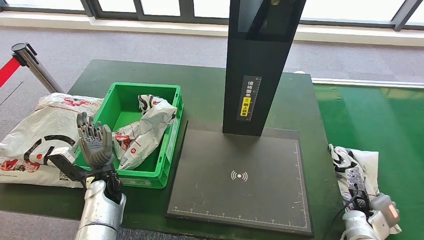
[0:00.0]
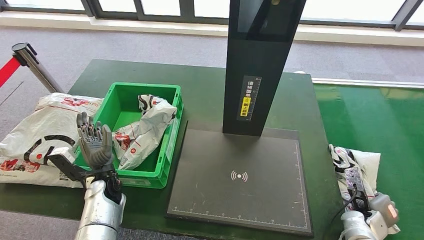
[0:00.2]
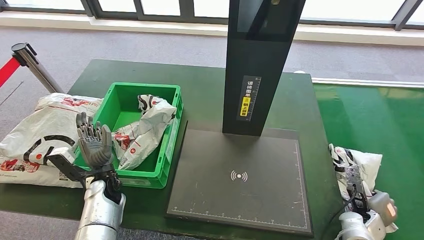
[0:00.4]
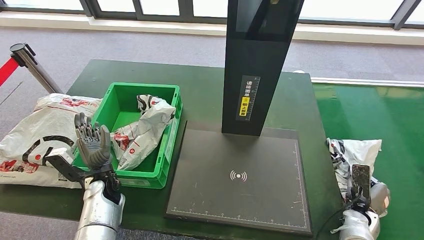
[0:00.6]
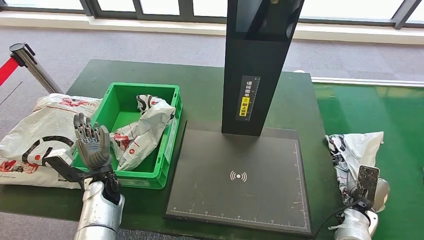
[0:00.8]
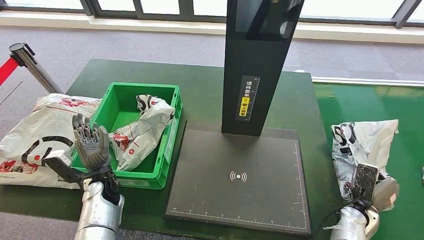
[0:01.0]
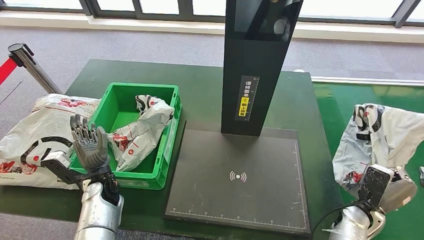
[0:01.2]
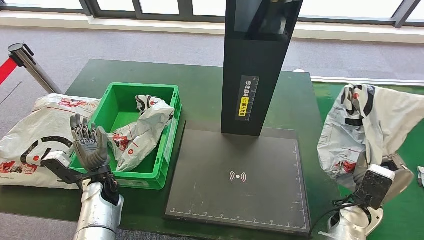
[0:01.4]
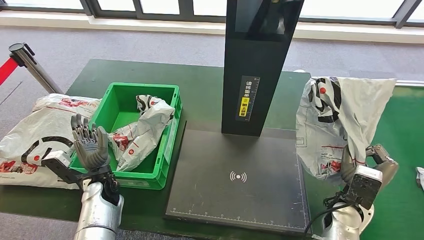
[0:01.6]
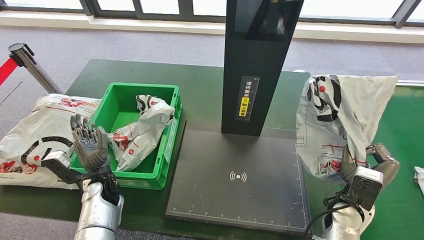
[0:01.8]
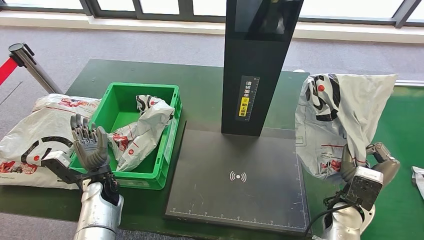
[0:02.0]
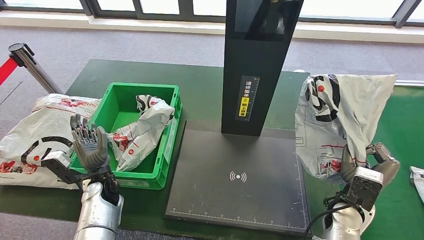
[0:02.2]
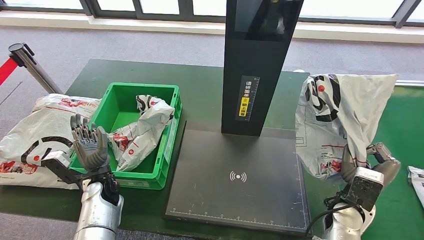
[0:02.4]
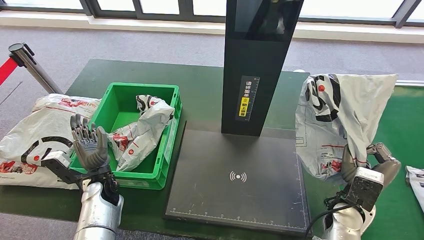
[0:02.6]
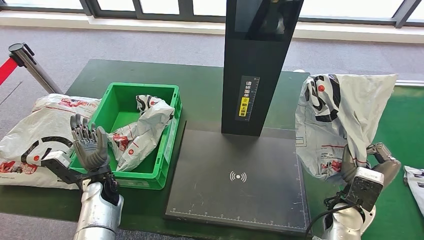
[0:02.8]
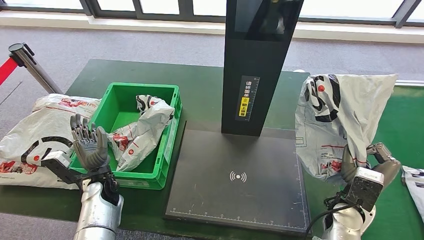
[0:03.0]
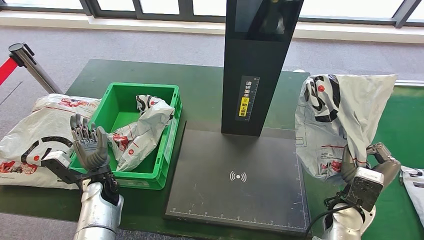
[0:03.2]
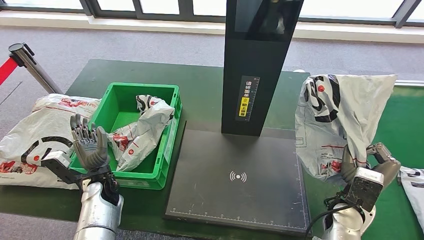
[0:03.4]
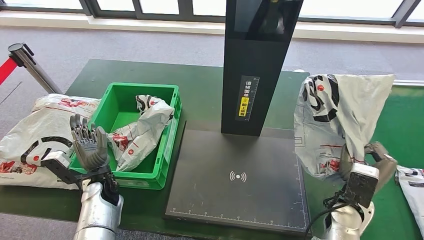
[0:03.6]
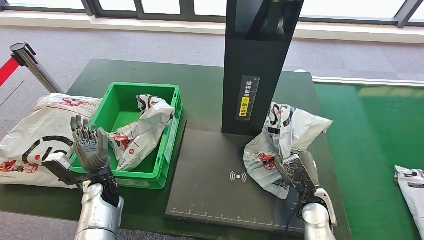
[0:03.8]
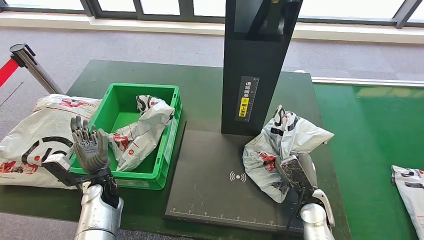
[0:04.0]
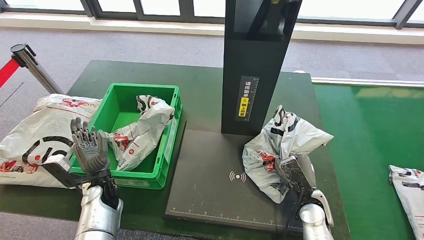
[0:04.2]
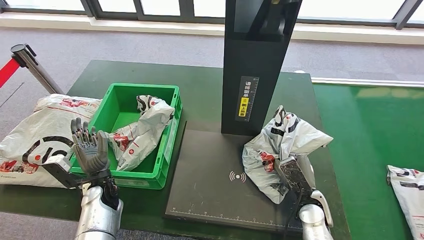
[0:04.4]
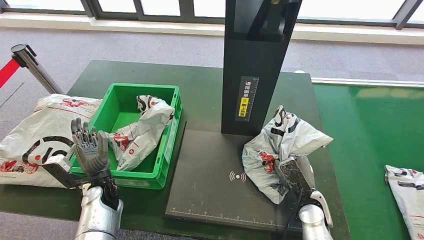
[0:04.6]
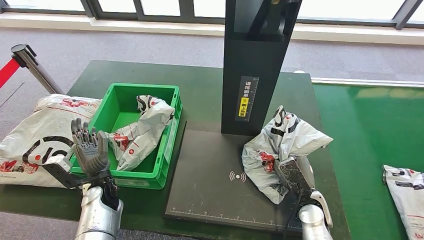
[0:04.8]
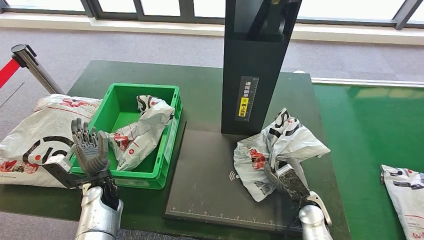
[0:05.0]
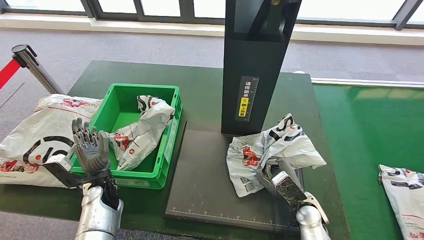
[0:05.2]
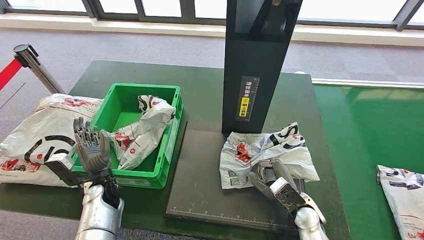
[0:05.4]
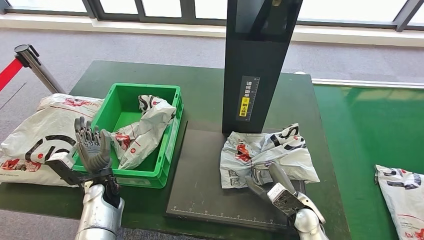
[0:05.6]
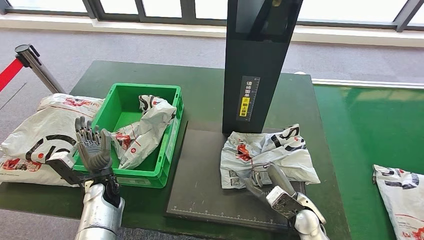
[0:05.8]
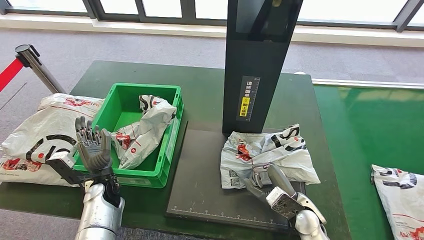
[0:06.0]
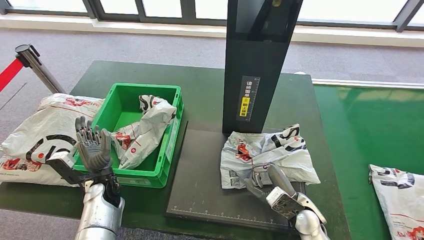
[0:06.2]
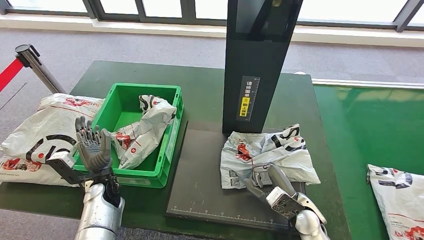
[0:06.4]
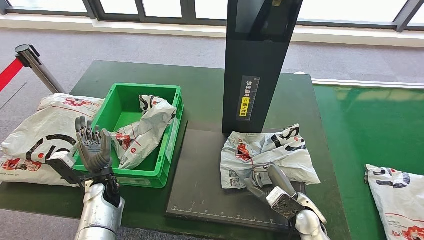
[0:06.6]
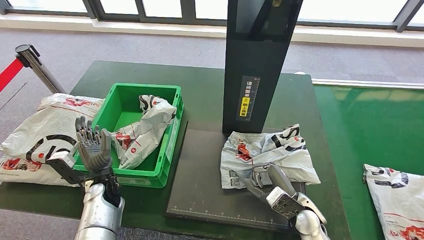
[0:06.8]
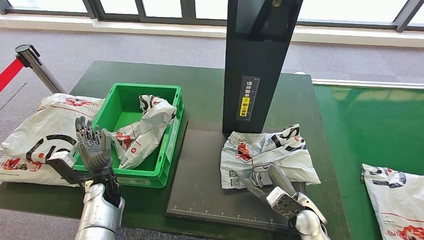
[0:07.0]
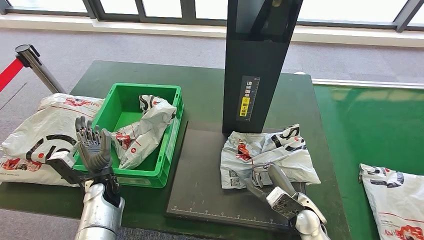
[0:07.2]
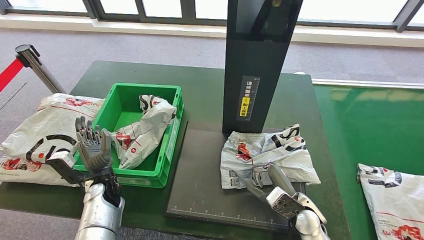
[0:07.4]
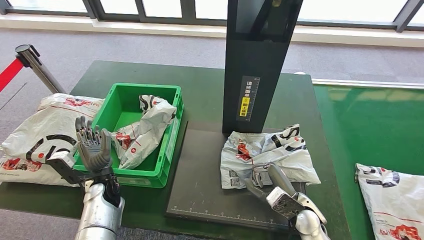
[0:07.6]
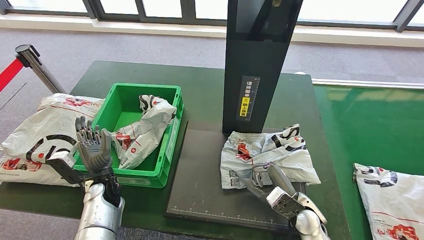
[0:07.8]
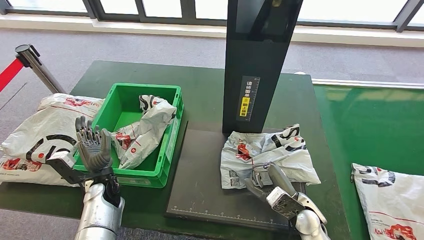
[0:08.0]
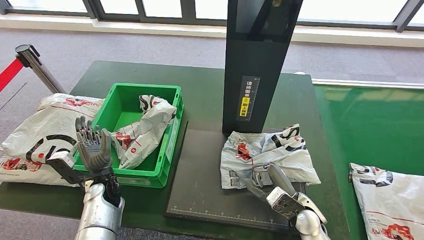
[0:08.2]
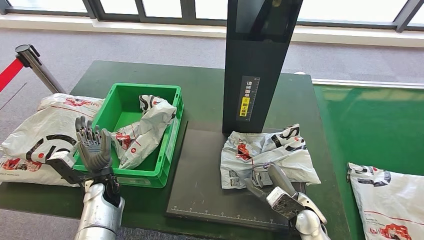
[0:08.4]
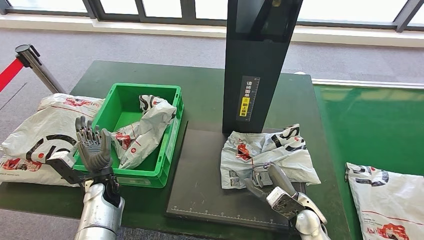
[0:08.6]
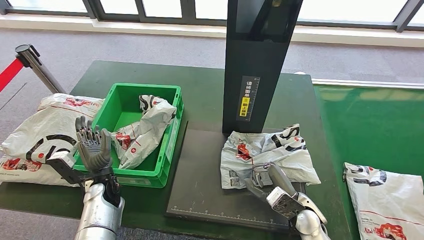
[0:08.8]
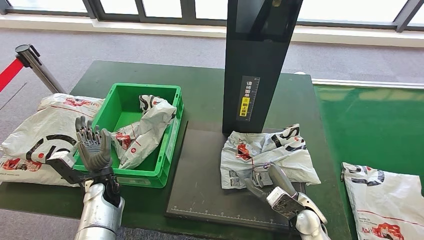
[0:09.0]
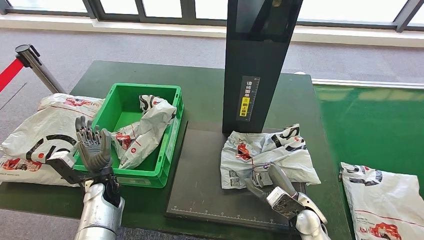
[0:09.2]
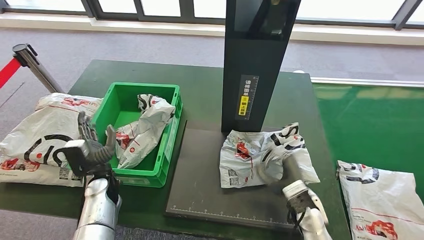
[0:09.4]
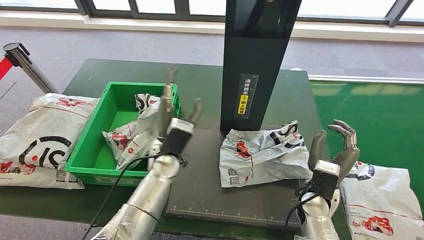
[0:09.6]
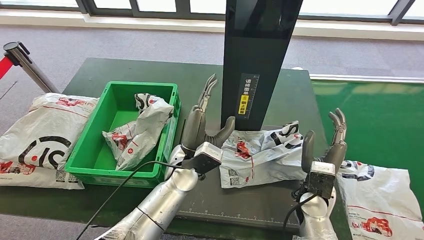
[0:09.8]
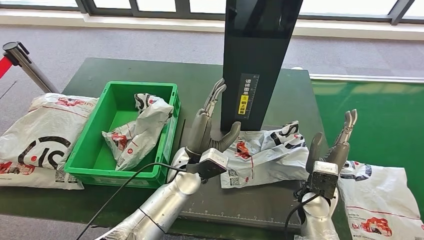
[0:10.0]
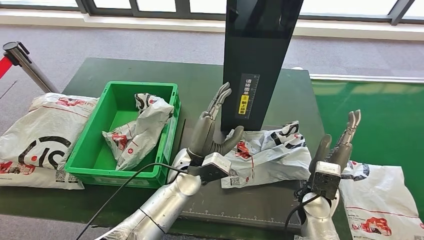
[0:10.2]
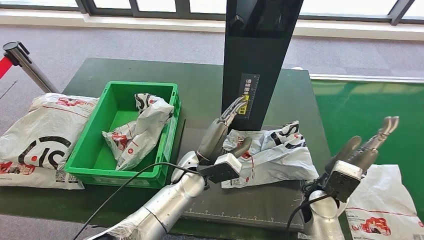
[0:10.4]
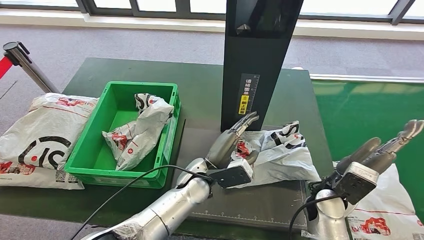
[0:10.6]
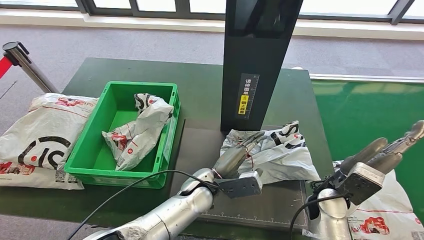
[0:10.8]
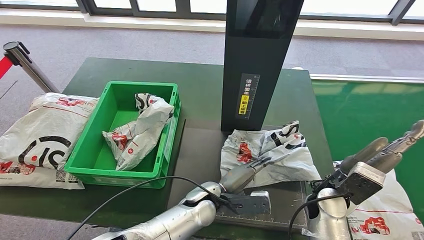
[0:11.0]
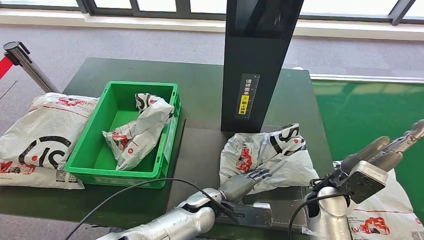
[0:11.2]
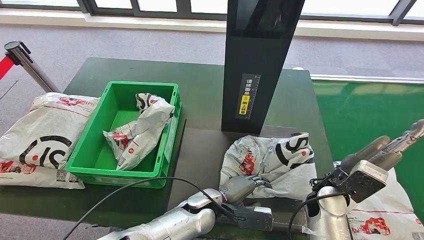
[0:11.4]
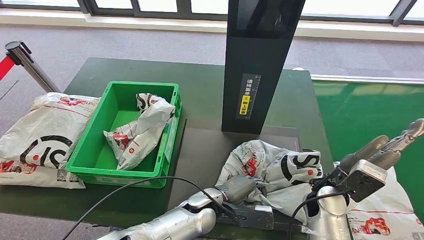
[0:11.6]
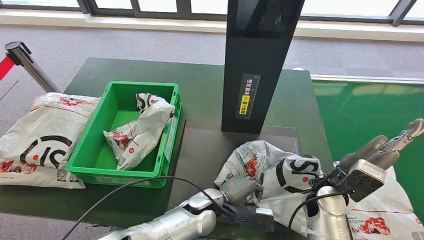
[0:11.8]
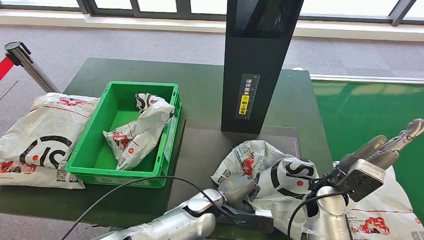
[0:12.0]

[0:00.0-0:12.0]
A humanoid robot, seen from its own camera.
Step, 0:02.8 to 0:09.6: Place the parcel onto the inbound machine.
0:01.6 to 0:03.0: Neither hand changes place.
0:06.0 to 0:09.0: Neither hand changes place.

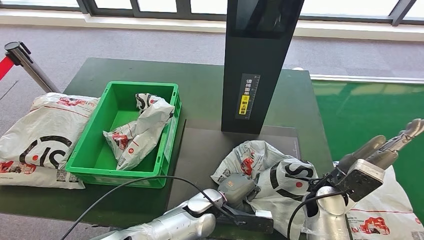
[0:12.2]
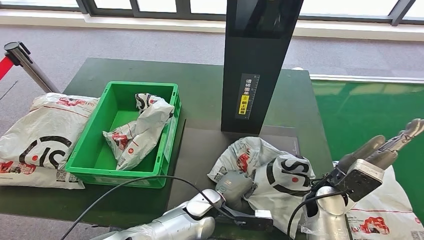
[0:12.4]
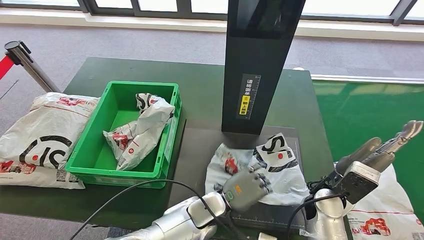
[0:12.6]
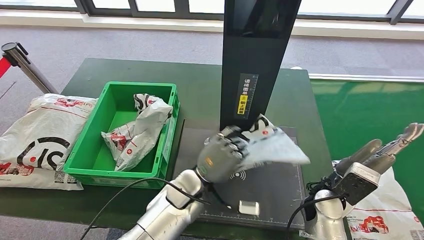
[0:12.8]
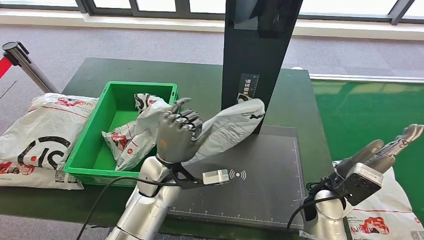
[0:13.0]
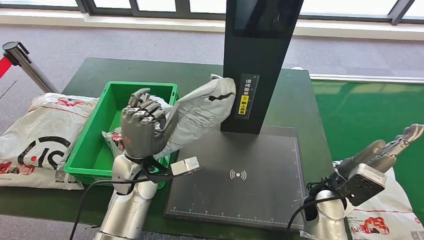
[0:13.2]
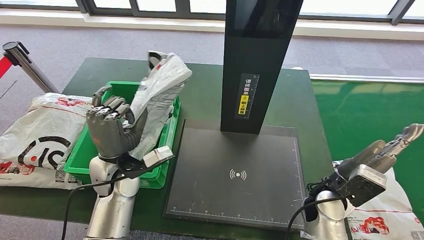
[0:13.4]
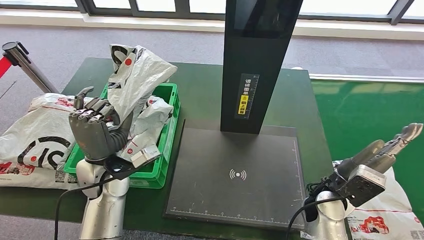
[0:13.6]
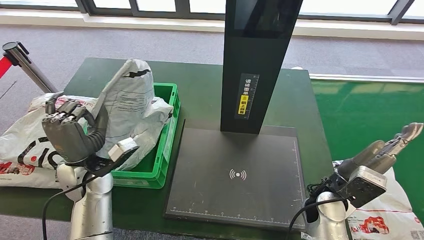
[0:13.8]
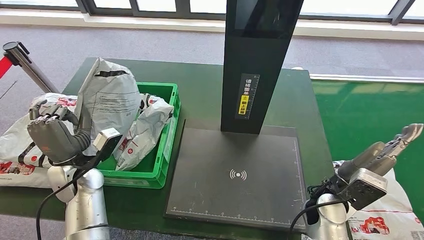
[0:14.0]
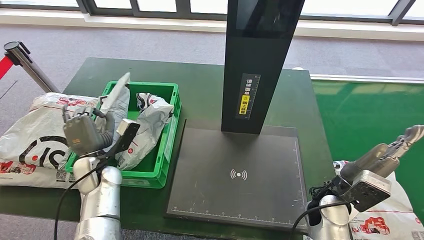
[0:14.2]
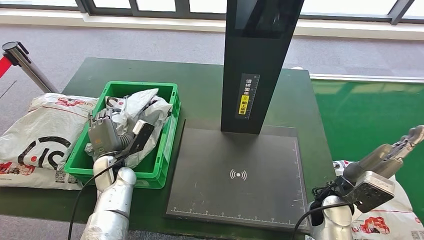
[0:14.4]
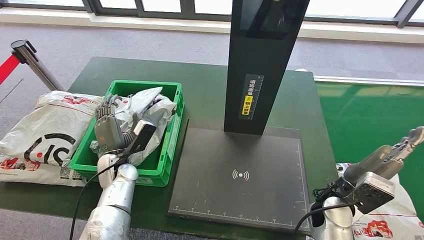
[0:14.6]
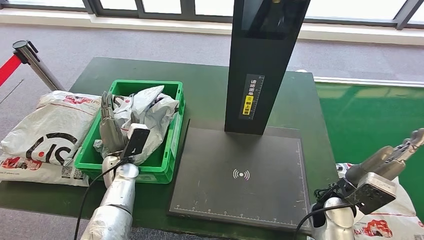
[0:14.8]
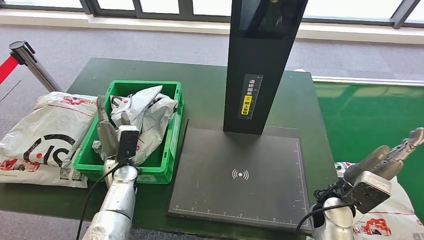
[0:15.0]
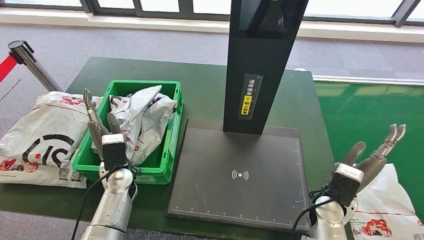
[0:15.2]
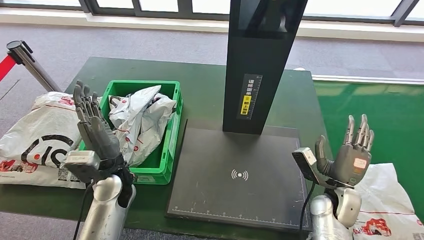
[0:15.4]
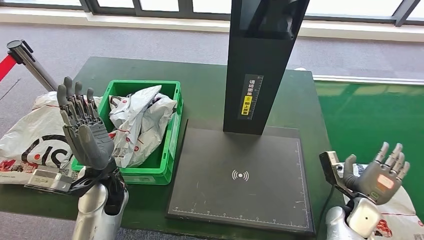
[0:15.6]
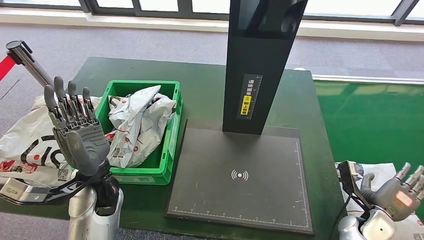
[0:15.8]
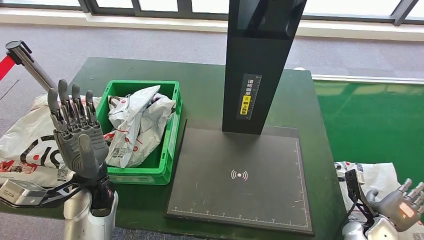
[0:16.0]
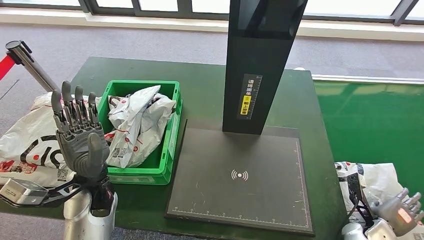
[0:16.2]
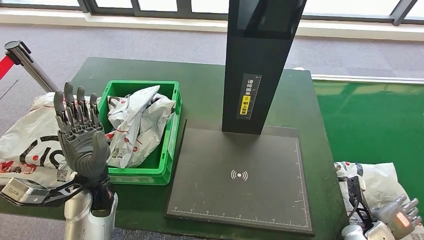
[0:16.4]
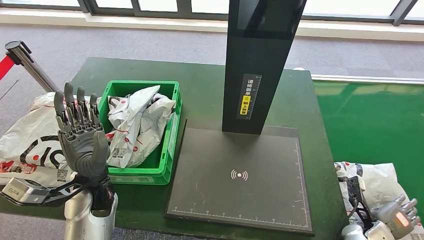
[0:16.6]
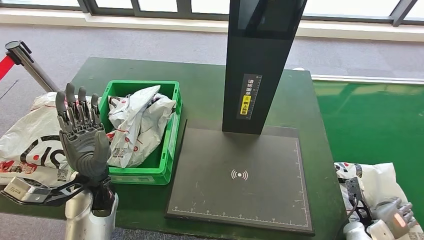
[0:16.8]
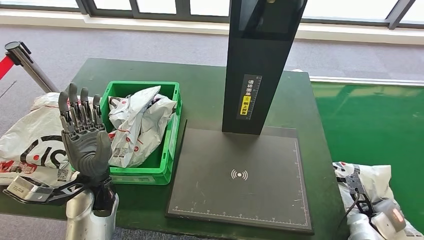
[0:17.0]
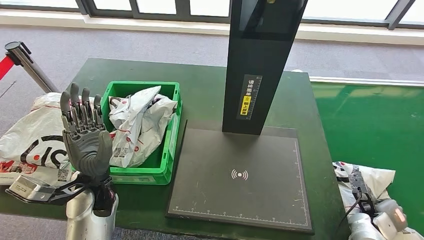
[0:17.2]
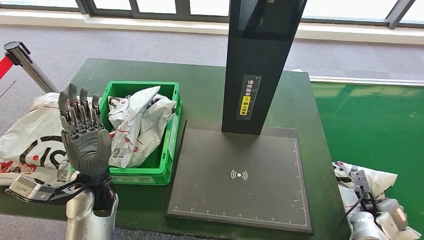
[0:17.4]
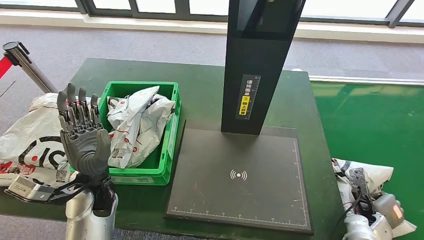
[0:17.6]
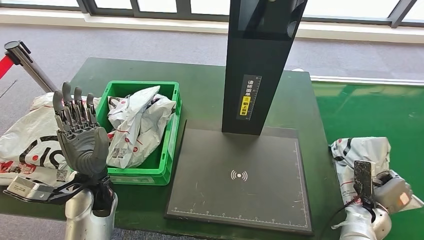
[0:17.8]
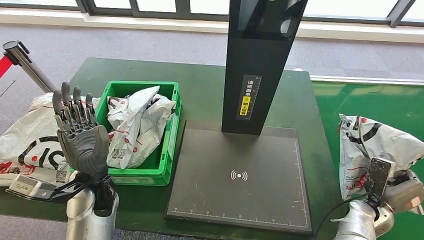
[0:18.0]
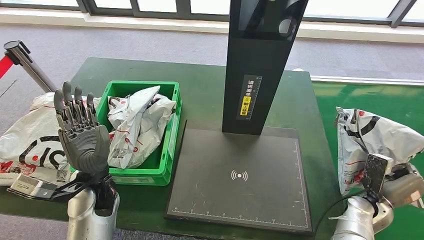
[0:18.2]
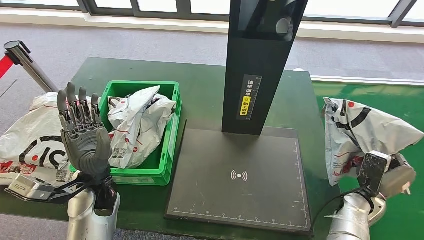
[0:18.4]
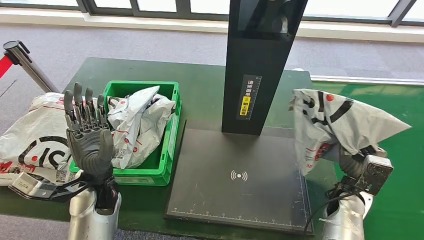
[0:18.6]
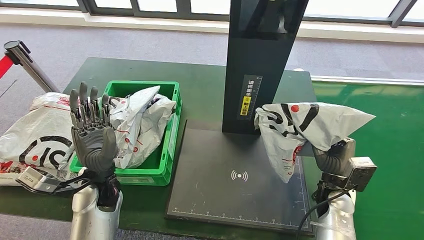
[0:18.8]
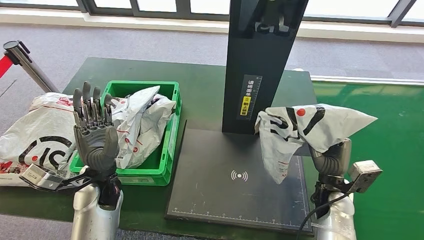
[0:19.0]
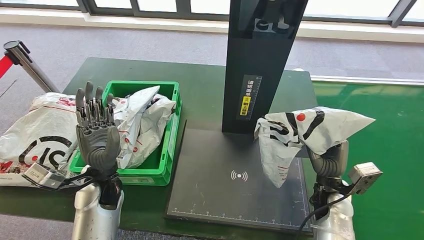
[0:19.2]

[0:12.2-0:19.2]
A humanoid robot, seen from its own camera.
Step, 0:13.6 to 0:15.4: Place the parcel into the delivery box.
Step, 0:16.4 to 0:18.2: Pick up the parcel from the conveyor belt.
